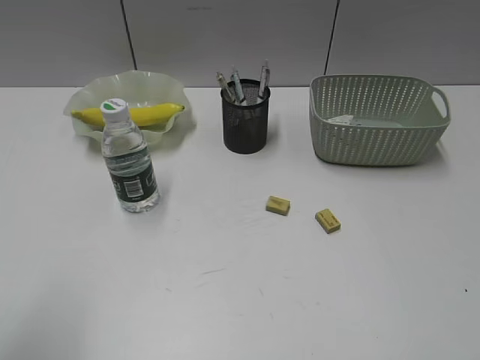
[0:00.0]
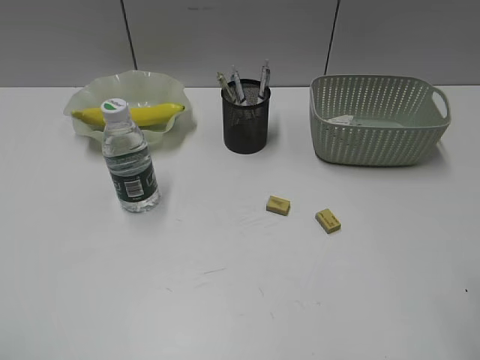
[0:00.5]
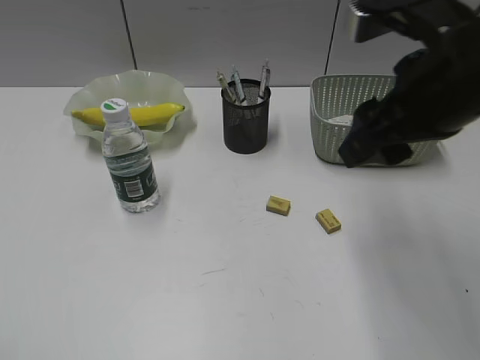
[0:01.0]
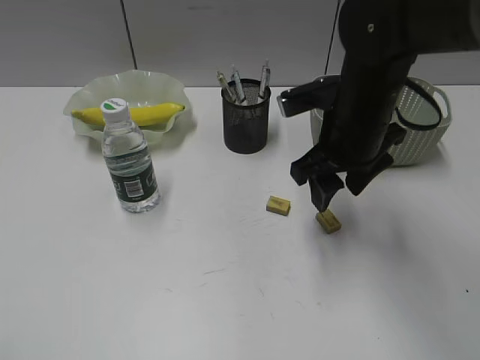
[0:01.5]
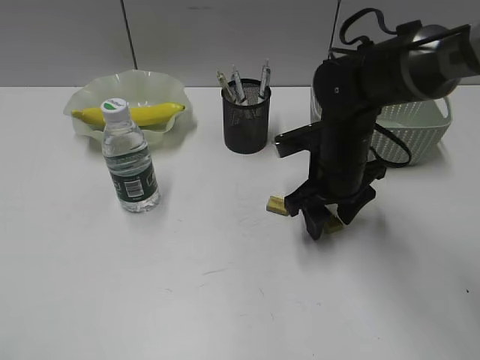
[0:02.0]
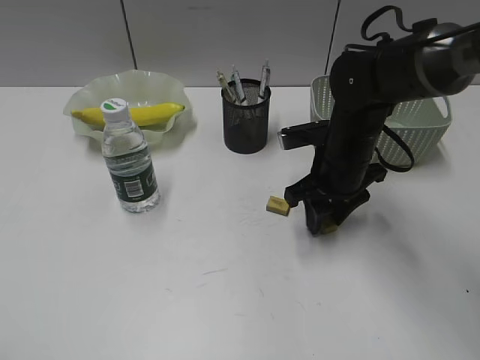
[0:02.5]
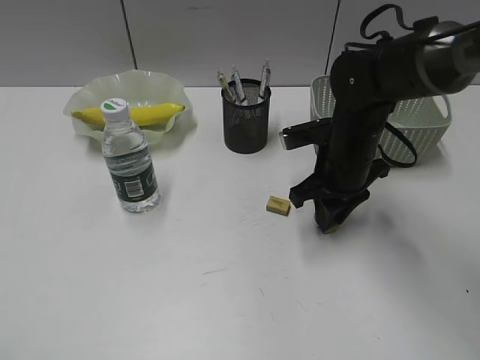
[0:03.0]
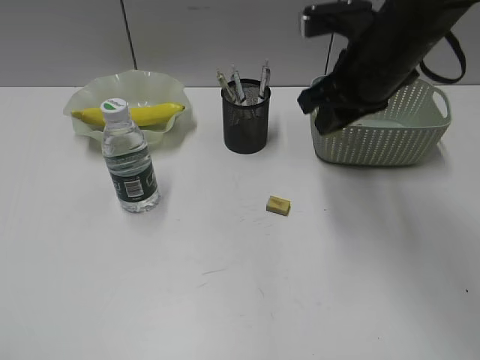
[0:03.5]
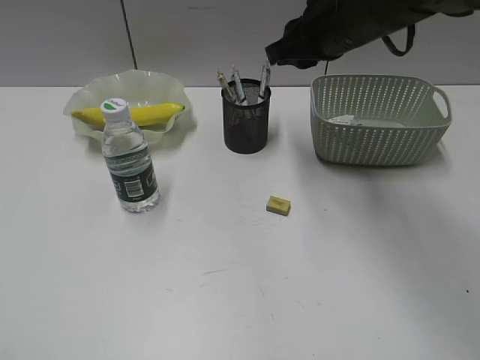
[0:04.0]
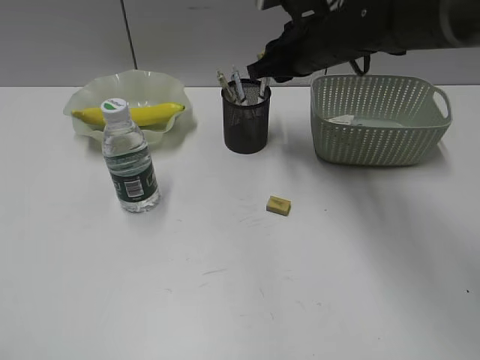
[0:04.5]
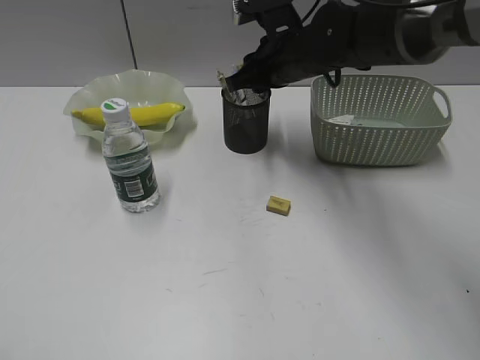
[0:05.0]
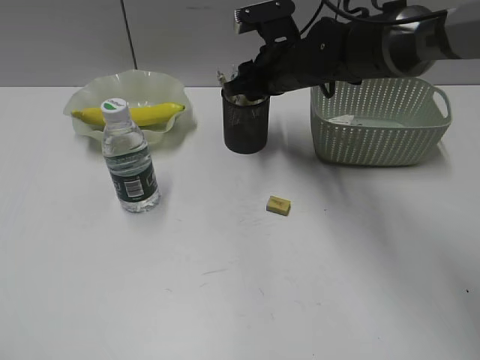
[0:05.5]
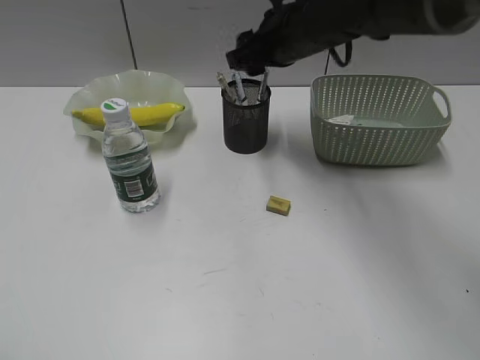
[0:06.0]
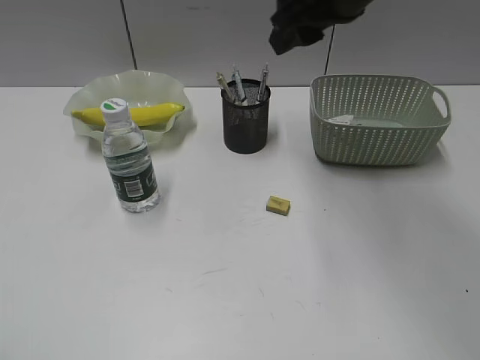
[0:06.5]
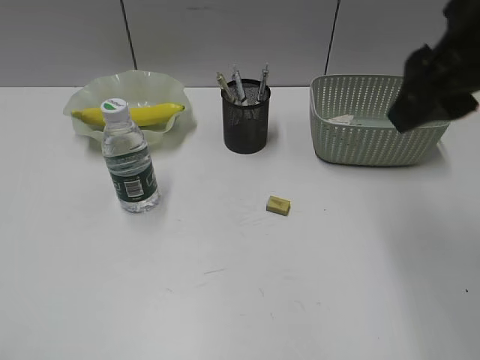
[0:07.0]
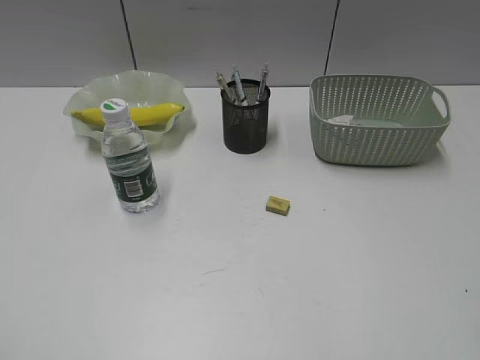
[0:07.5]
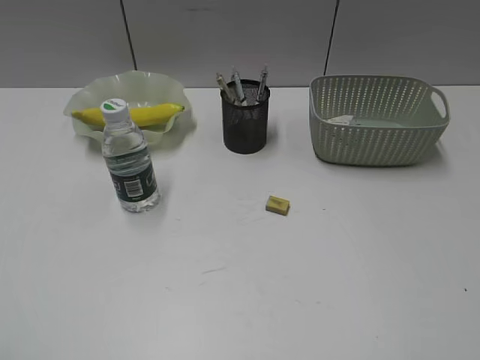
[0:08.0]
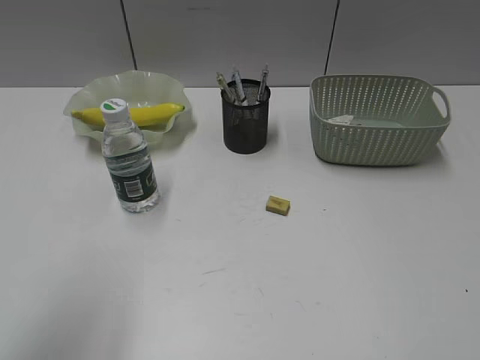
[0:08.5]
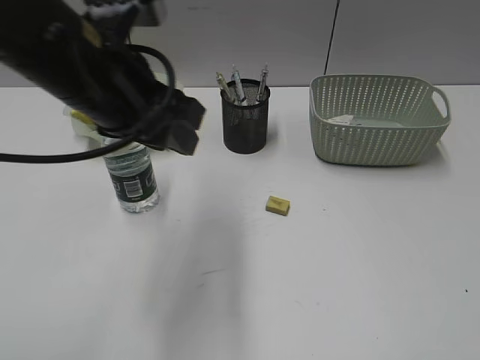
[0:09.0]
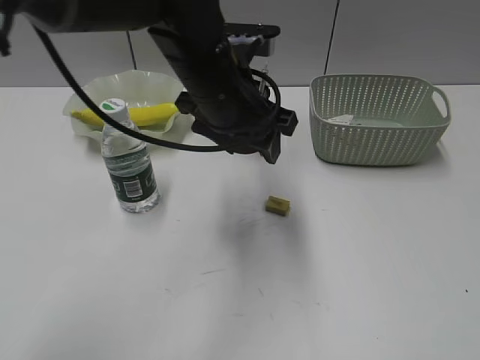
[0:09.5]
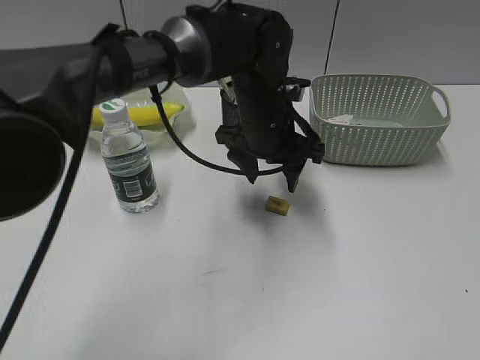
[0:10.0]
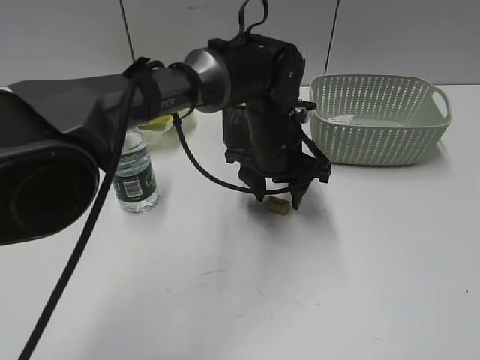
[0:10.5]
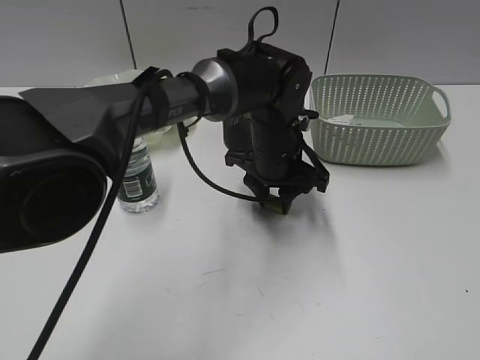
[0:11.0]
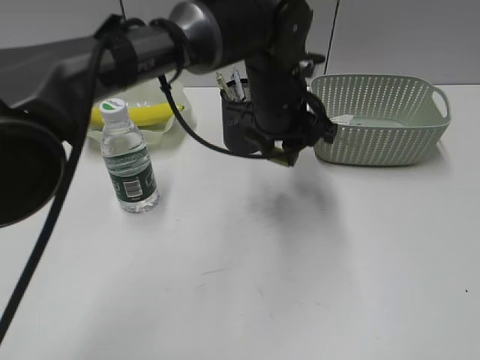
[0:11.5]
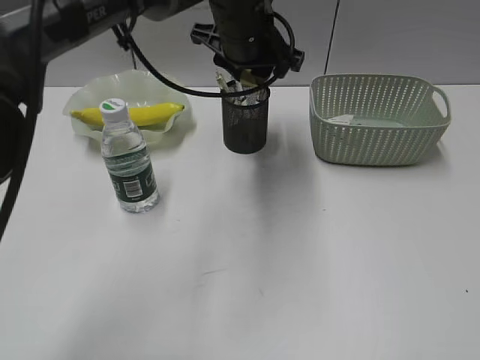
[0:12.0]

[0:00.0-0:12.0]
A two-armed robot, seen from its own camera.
Step, 0:00.0 to 0:02.5: Grasp the eraser with right gripper.
Step, 0:03.0 to 0:05.5: Place the eraser in pen holder with right gripper.
Step, 0:06.0 to 0:11.0: Grasp the eraser with left gripper.
0:00.0 to 0:02.0: The left gripper heads backward and to the left, covering some 10 cm. The right gripper heads forward, to the left and downward, covering some 40 cm.
0:02.0 to 0:04.0: The right gripper is displaced upward by about 15 cm, and closes its fingers.
0:04.0 to 0:06.0: The right gripper opens.
0:06.0 to 0:08.0: The right gripper is displaced backward and to the right by about 50 cm.
0:08.0 to 0:10.0: The left gripper travels forward and to the right by roughly 50 cm, and opens.
0:10.0 to 0:12.0: The left gripper is displaced upward by some 10 cm, and closes its fingers.

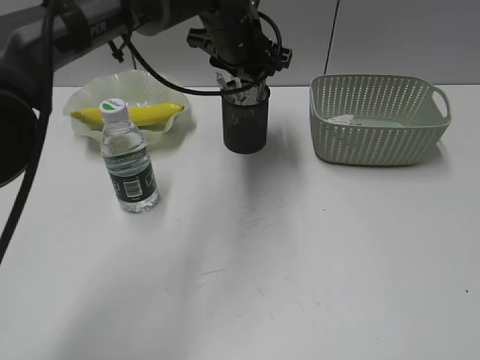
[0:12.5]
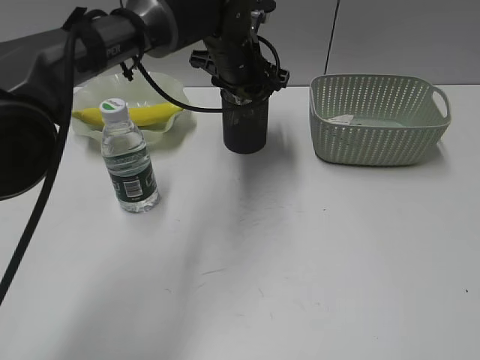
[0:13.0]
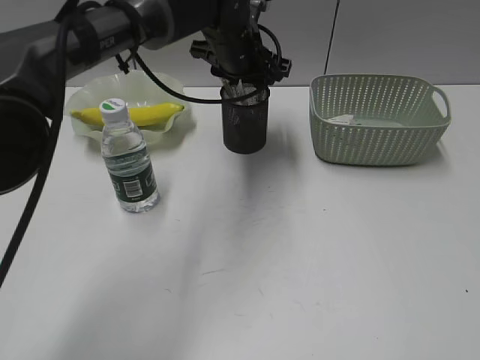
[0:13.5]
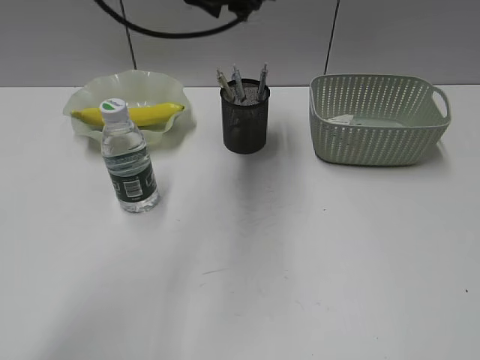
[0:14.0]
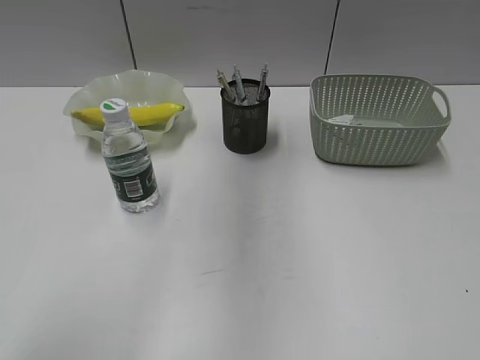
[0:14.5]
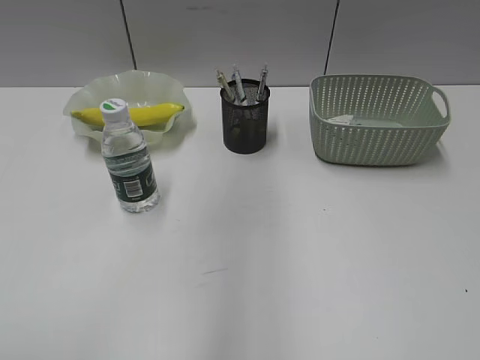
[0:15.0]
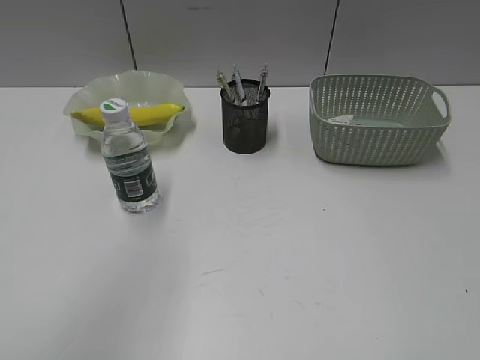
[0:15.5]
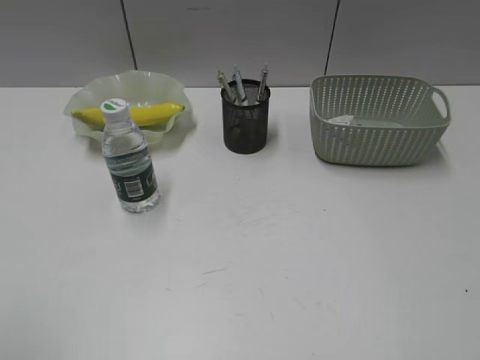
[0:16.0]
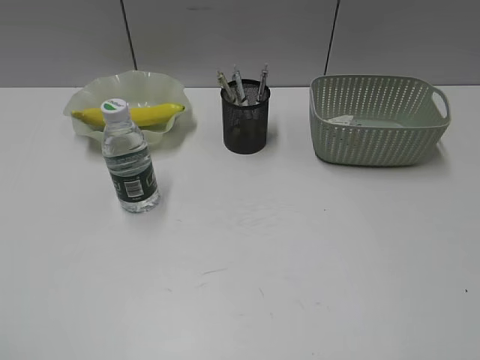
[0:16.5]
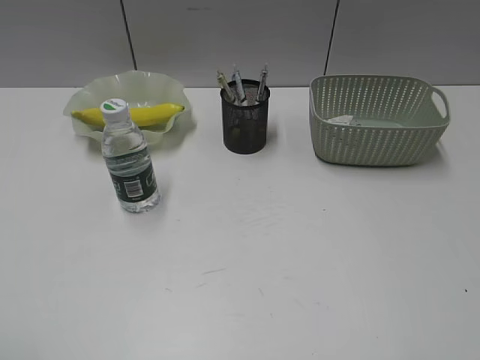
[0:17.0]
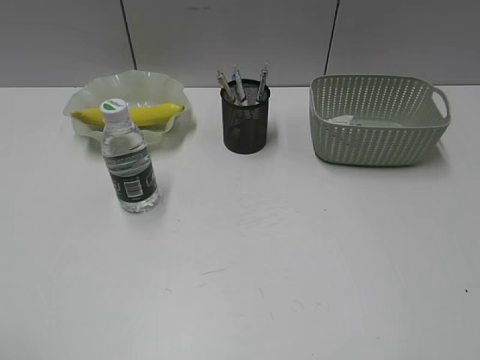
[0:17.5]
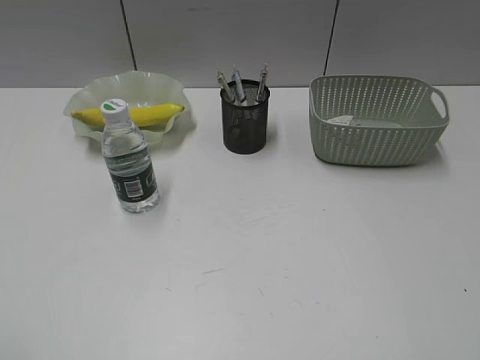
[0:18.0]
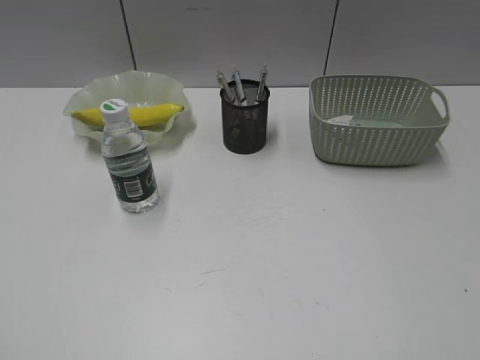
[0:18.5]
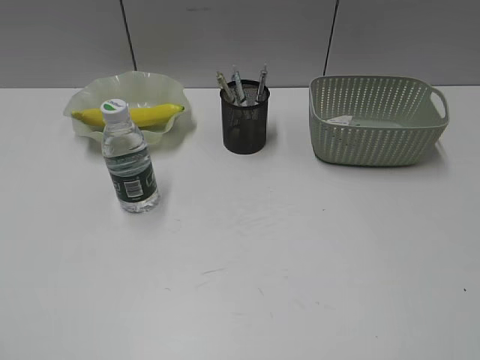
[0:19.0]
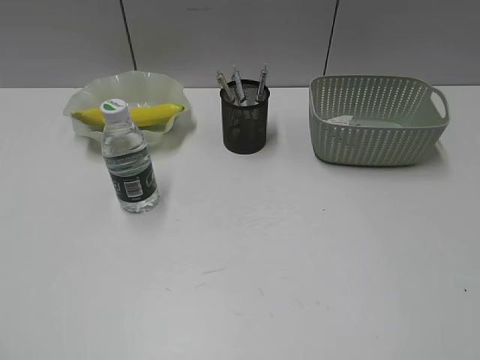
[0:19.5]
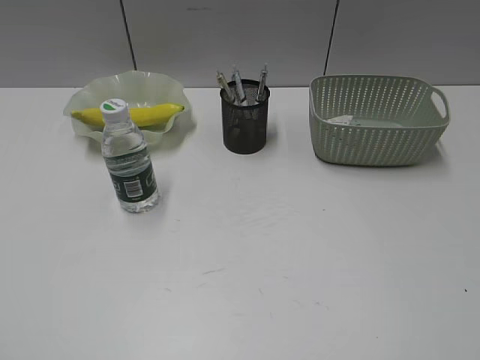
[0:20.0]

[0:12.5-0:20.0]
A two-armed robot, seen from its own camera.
0:12.5 to 0:14.5: The left gripper is displaced upward and backward by about 20 cm.
0:14.5 to 0:16.5: The left gripper is displaced backward and to the left by approximately 40 cm.
